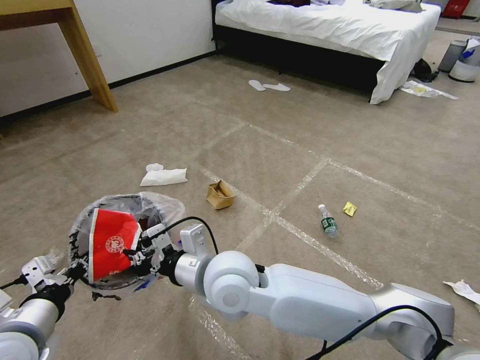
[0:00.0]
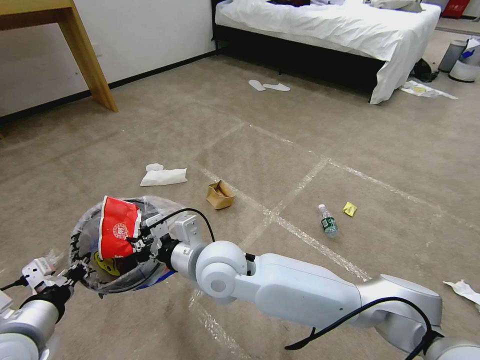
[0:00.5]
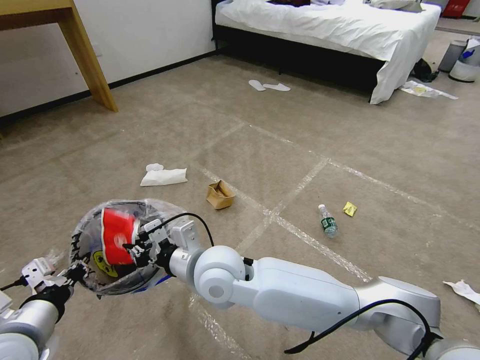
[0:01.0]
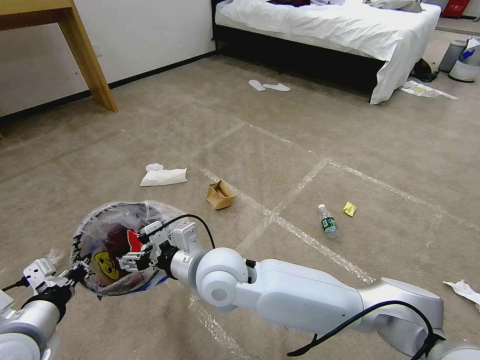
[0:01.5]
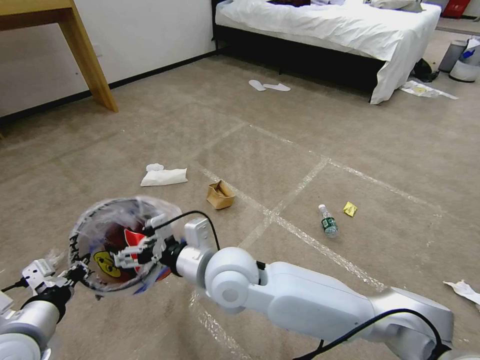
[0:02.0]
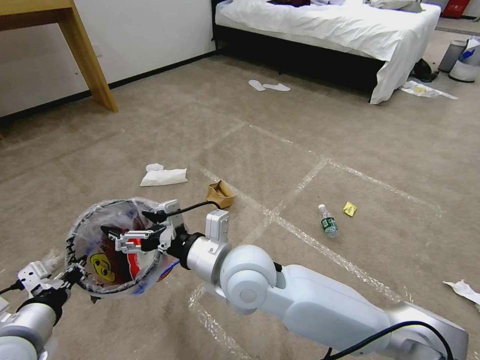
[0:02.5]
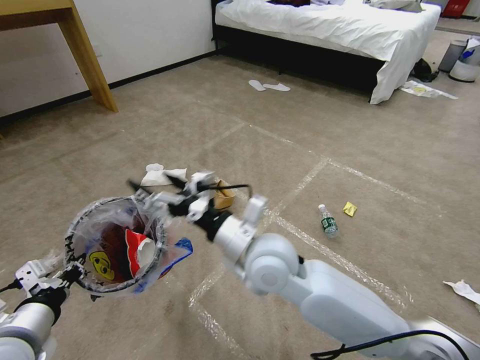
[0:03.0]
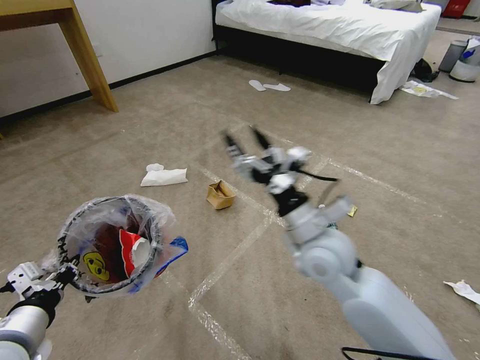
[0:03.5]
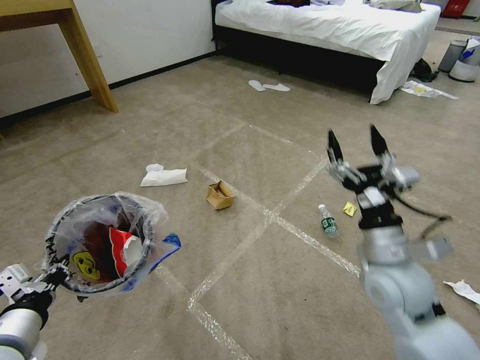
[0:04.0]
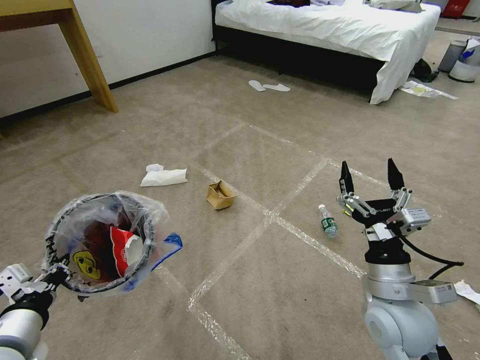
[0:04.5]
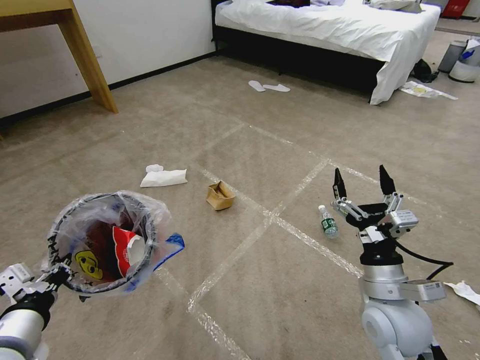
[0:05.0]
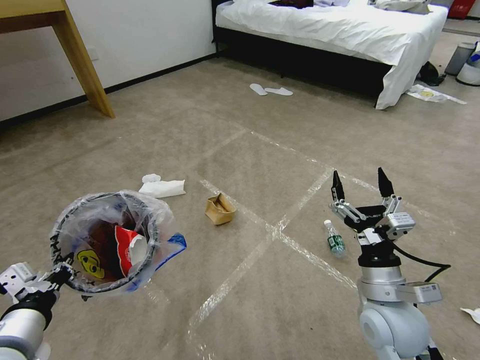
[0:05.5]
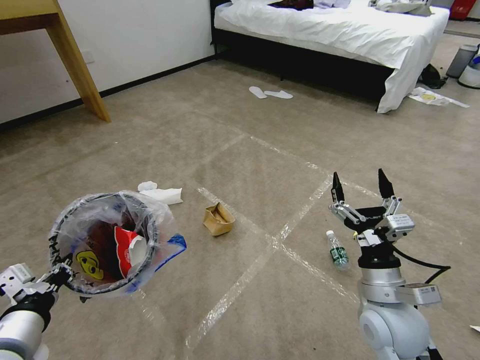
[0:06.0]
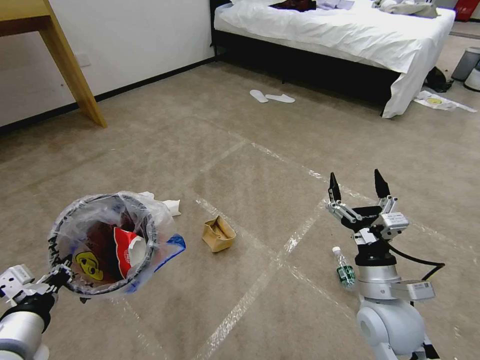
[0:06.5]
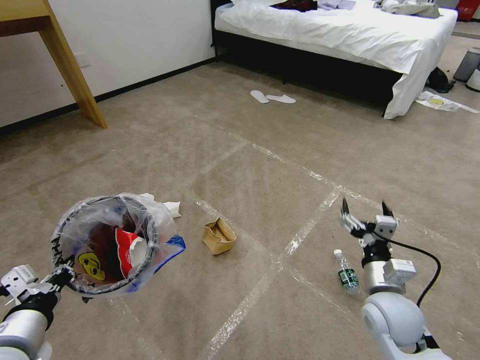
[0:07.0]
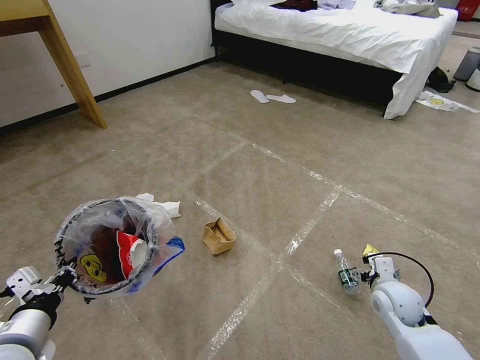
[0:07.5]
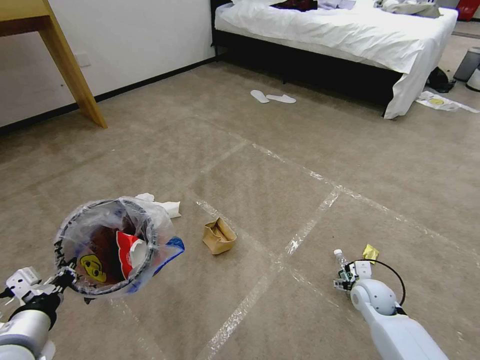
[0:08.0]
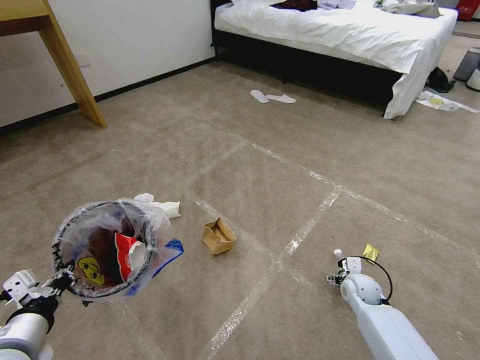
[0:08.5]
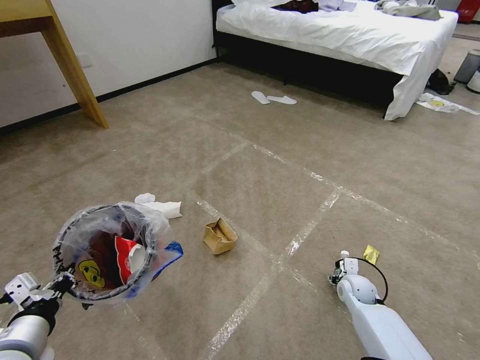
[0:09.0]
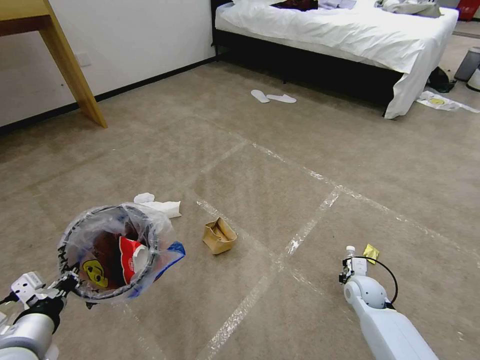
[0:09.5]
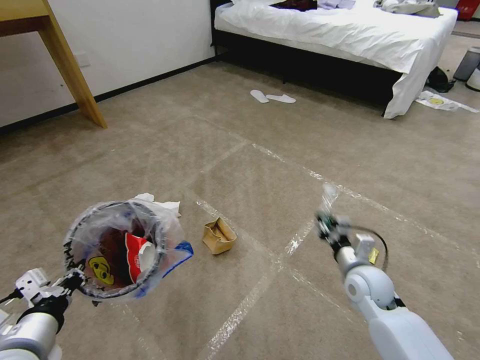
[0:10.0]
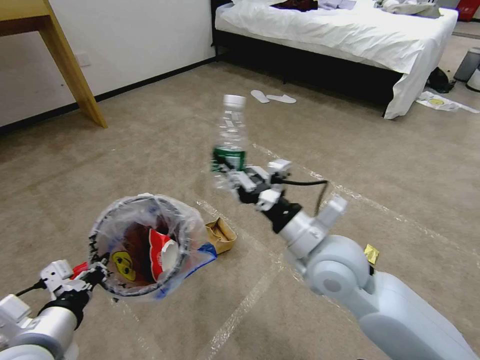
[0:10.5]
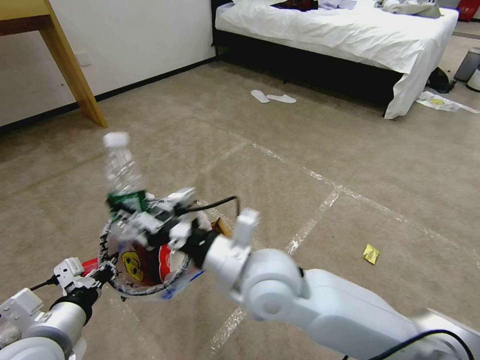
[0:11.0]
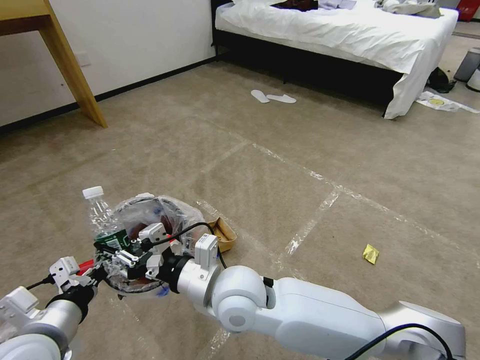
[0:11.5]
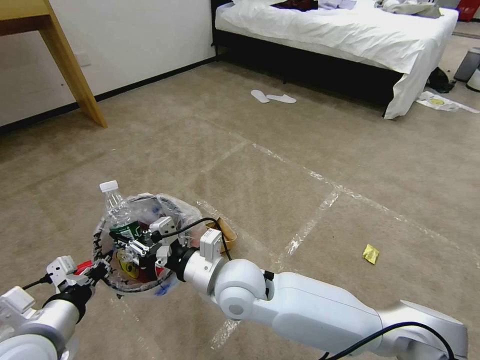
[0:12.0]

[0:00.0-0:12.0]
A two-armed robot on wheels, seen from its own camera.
Task of the whole recording: Pick up the trash bin and place the garbage on the floor into it.
0:00.0 to 0:02.0: The right gripper opens its fingers.
0:02.0 to 0:04.0: The right gripper is displaced to the right by roughly 30 cm.
0:04.0 to 0:06.0: The right gripper travels downward by some 5 cm.
0:06.0 to 0:08.0: The right gripper is displaced downward, forward and to the right by roughly 20 cm.
0:08.0 to 0:10.0: The right gripper goes approximately 5 cm upward, and closes.
0:10.0 to 0:12.0: The right gripper travels to the left by some 30 cm.

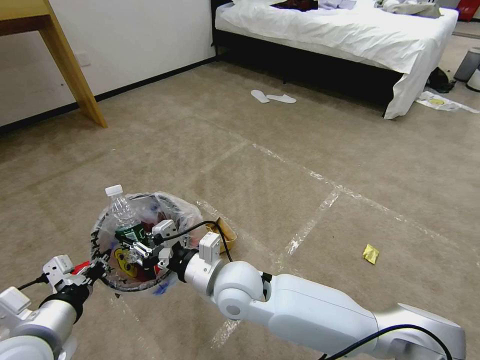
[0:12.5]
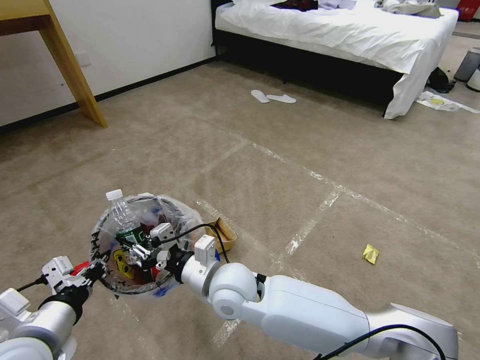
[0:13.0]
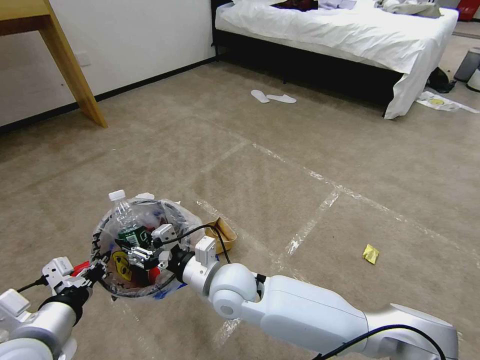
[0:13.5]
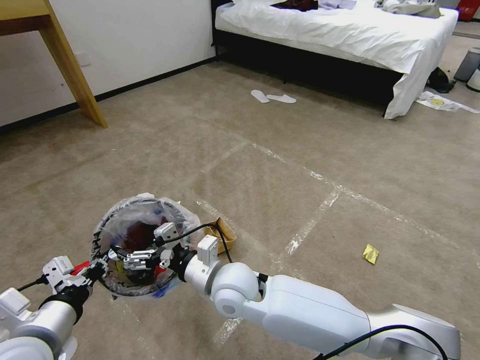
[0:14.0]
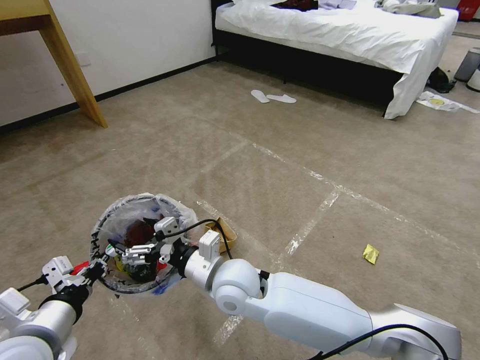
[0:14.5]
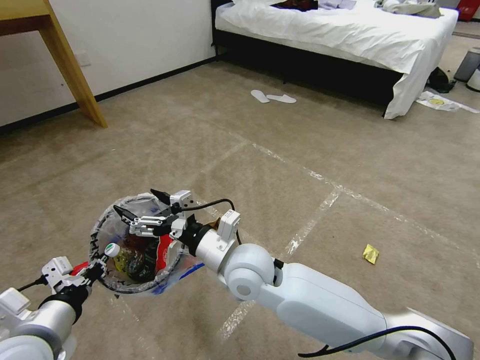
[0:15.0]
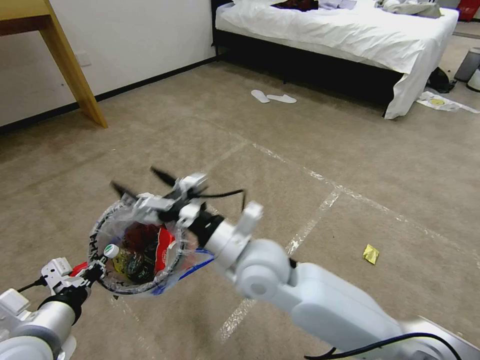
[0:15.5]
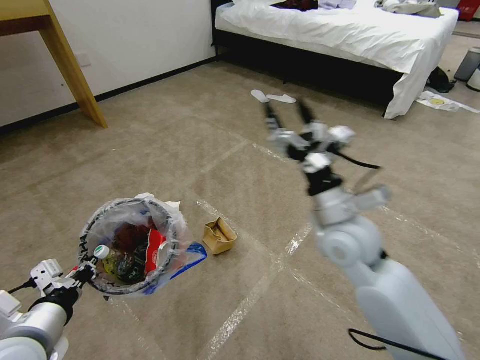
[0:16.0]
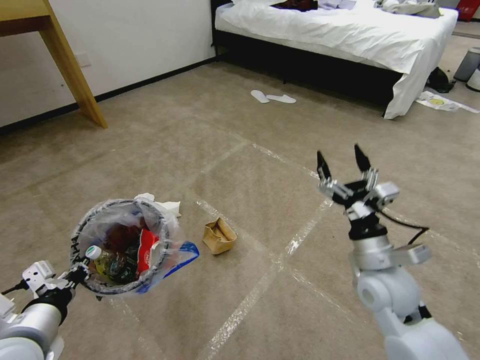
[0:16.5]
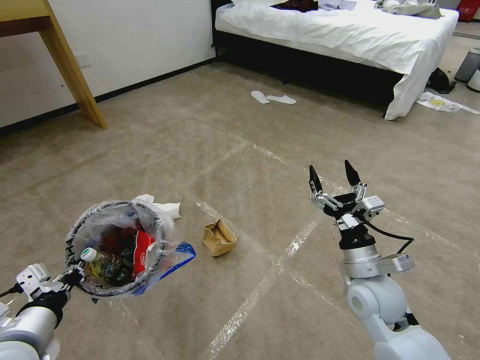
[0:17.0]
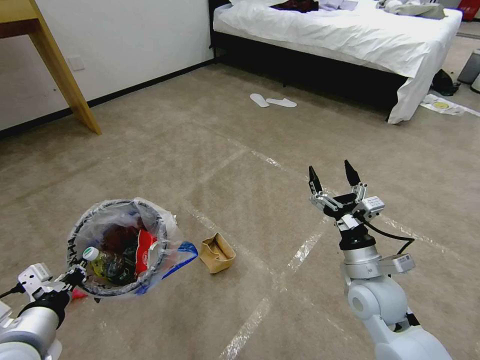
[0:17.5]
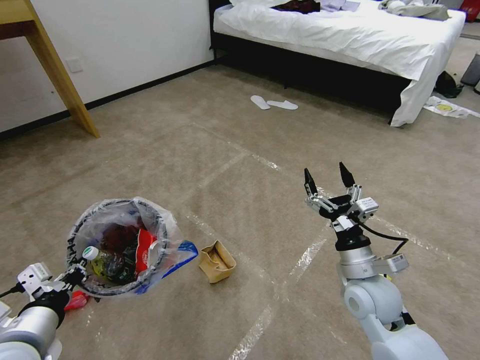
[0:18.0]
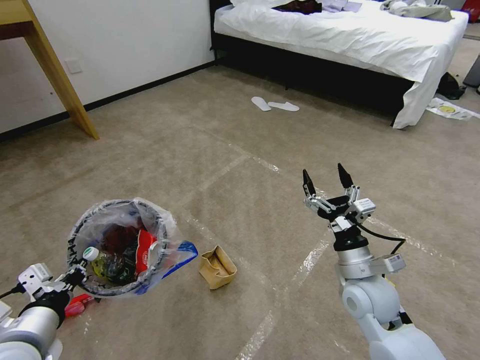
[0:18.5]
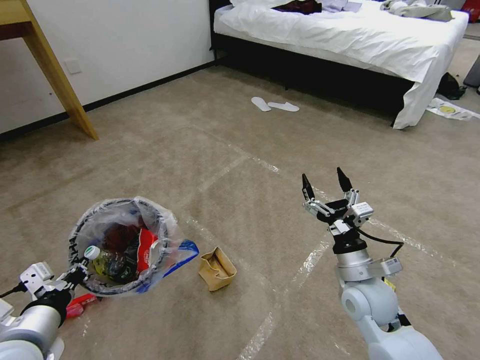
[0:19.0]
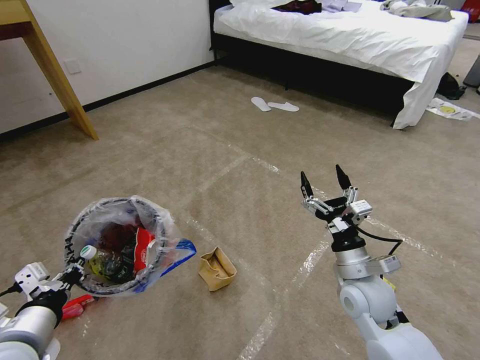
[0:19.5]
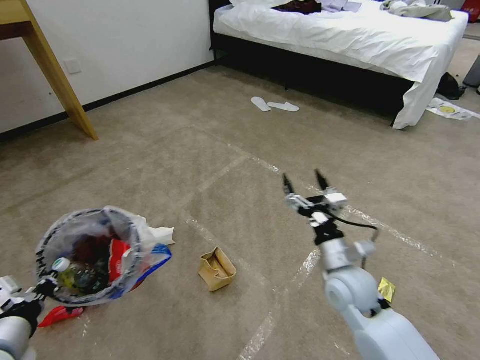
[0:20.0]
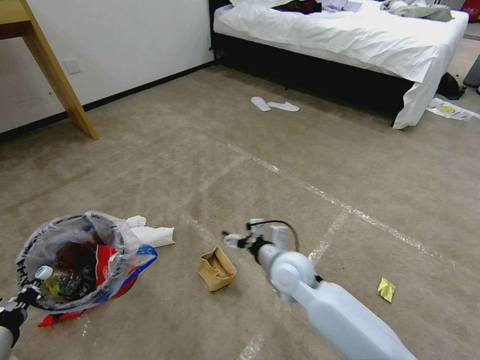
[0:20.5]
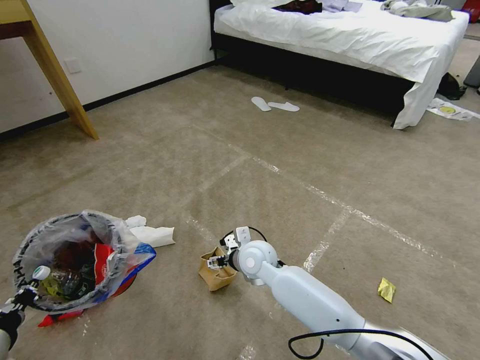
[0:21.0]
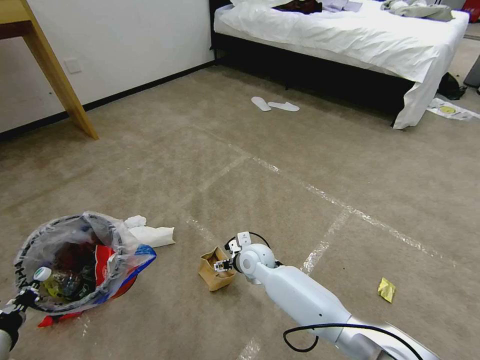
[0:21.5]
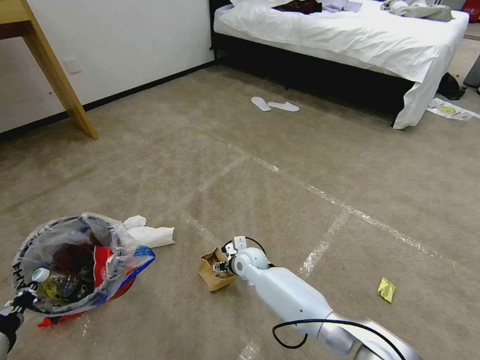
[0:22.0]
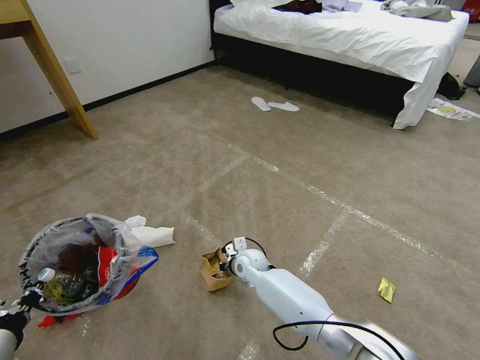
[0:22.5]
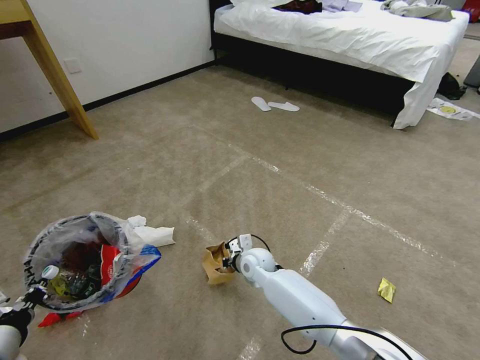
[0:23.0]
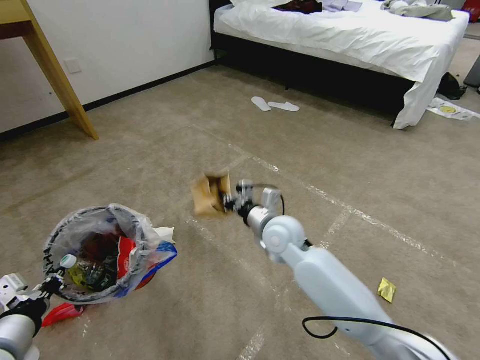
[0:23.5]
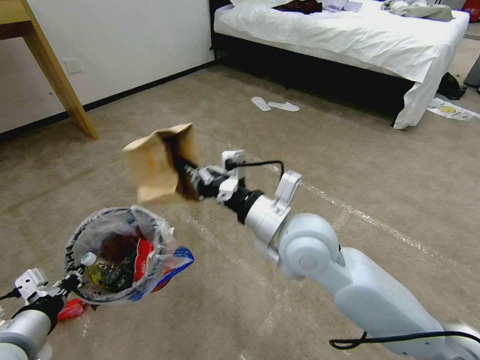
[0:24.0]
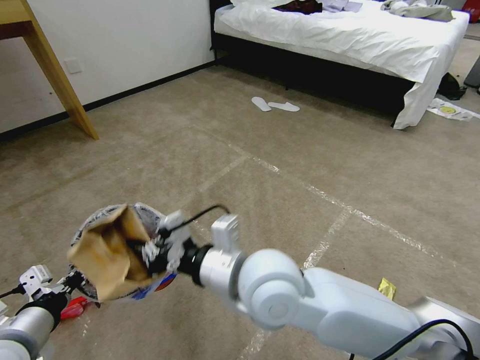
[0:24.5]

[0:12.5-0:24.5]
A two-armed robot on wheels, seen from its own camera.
Task of the whole recording: Pick up the trash bin and place the garbage on the floor into it.
0:12.5 to 0:14.5: The right gripper opens up.
0:14.5 to 0:16.5: The right gripper heads to the right, covering some 30 cm.
0:18.5 to 0:20.5: The right gripper travels to the left and forward by about 15 cm. Meanwhile the left gripper moves to the left, approximately 5 cm.
0:20.5 to 0:22.5: The right gripper heads downward, forward and to the left, covering some 20 cm, and closes up.
0:22.5 to 0:24.5: The right gripper shifts roughly 35 cm upward and backward. Meanwhile the left gripper changes place by approximately 5 cm.

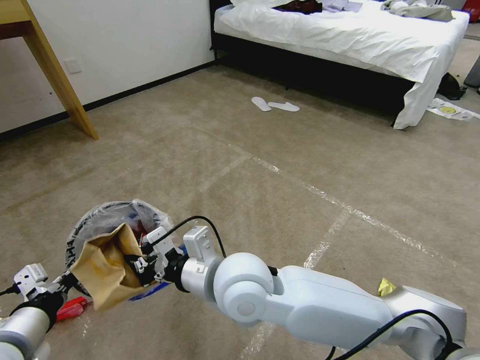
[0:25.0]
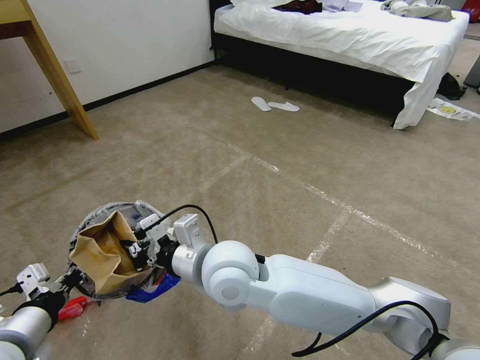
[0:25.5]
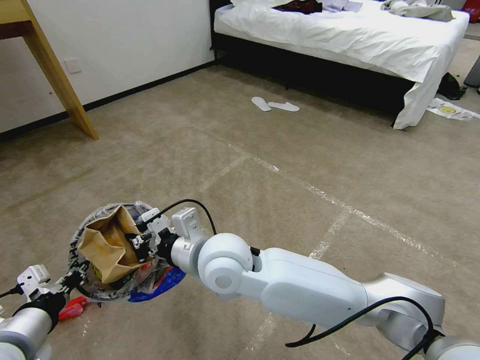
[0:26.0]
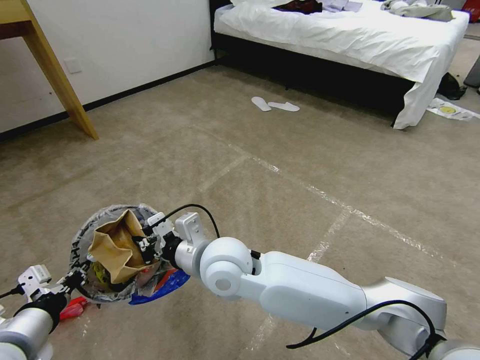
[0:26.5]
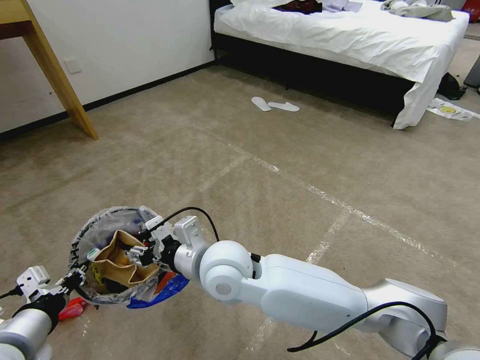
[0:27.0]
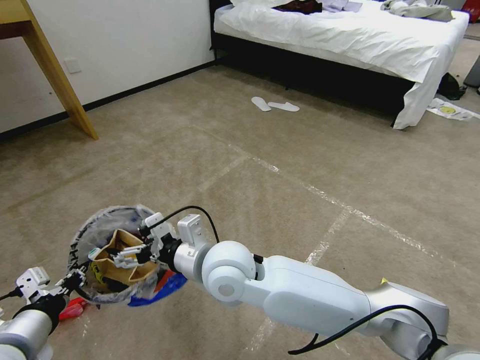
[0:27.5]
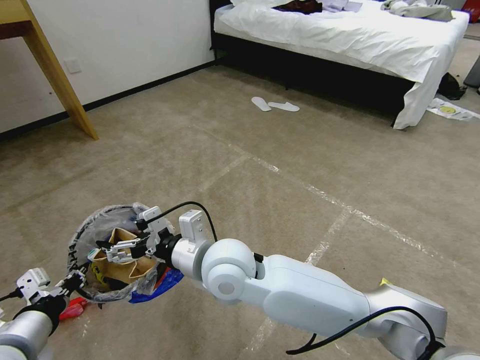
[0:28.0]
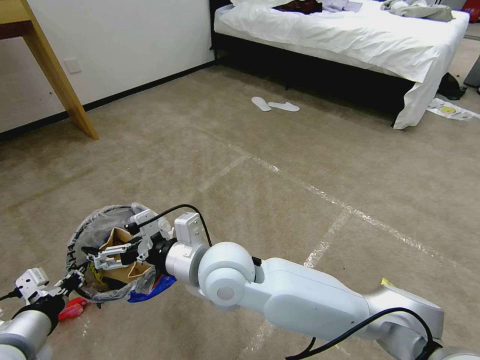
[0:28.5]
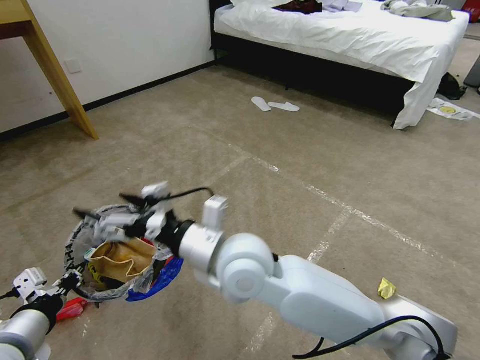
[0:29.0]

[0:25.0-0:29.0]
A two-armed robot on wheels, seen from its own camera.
Task of the whole recording: Pick up the trash bin and place the garbage on the floor into it.
0:25.0 to 0:27.0: The right gripper shifts by roughly 5 cm, and opens.
0:27.0 to 0:29.0: The right gripper opens up.
